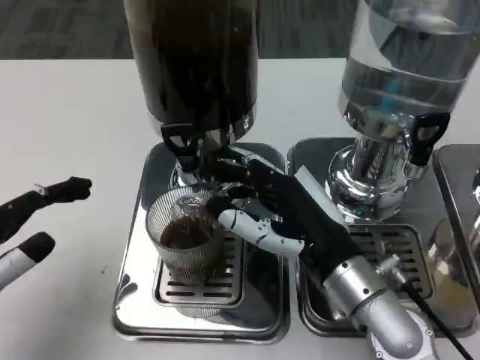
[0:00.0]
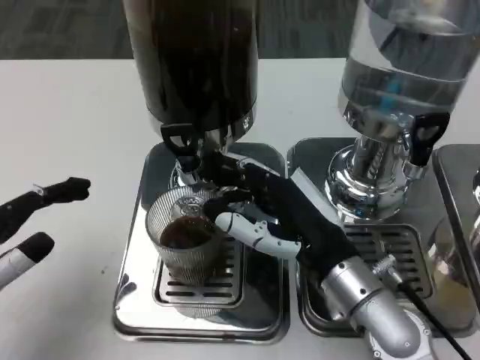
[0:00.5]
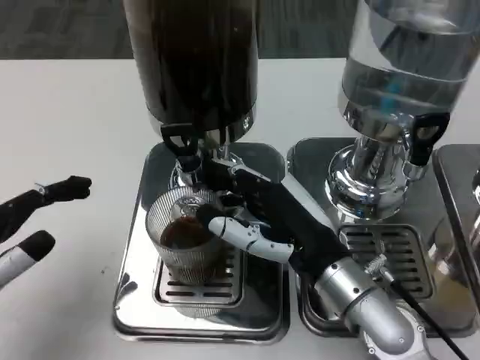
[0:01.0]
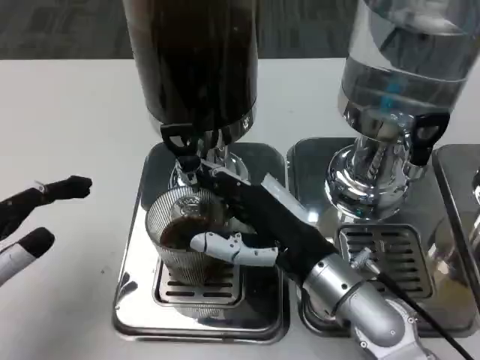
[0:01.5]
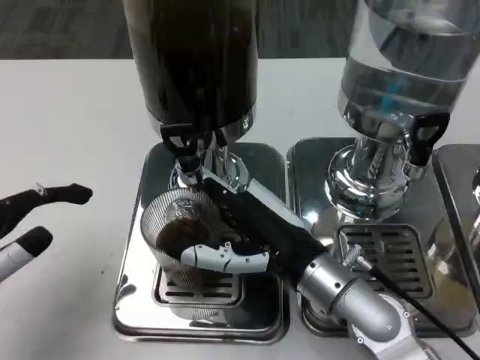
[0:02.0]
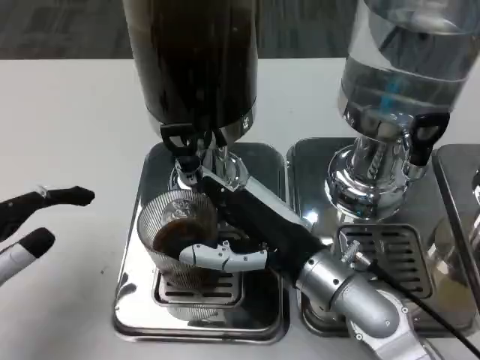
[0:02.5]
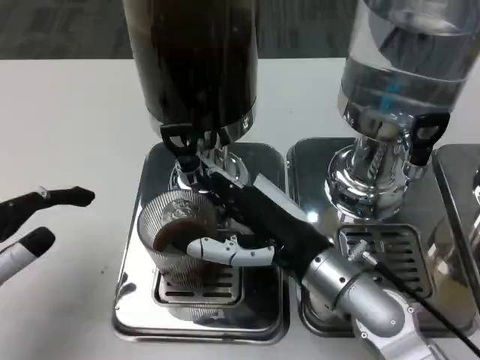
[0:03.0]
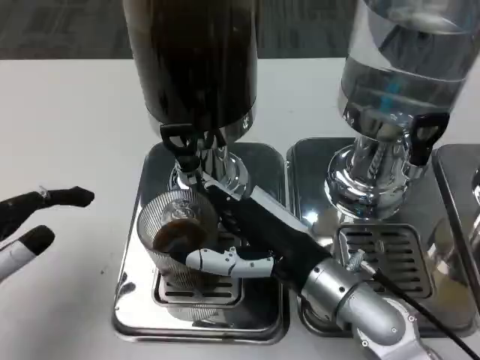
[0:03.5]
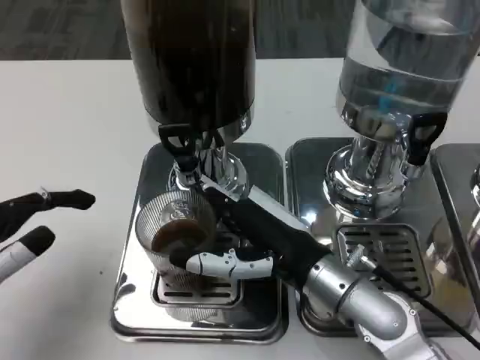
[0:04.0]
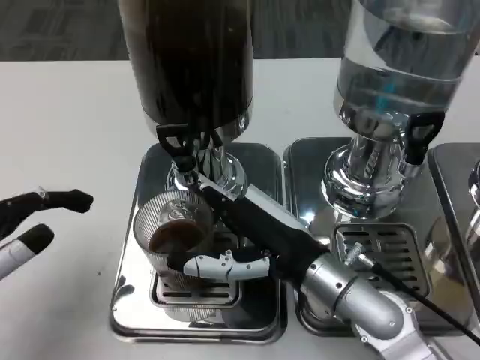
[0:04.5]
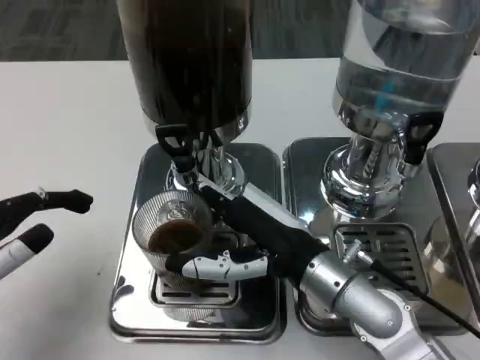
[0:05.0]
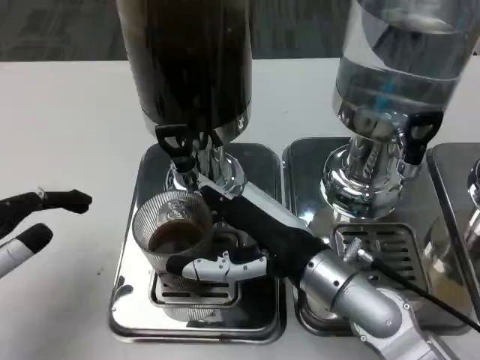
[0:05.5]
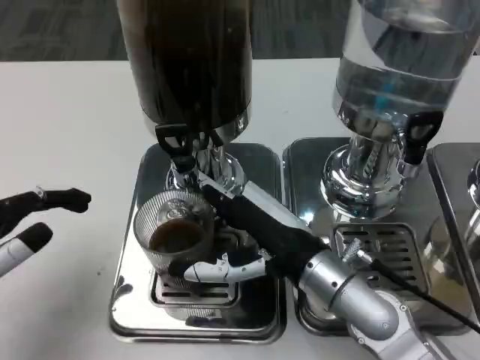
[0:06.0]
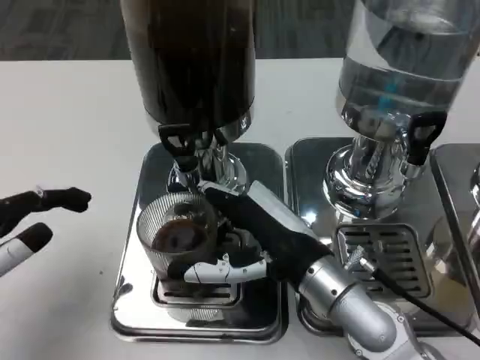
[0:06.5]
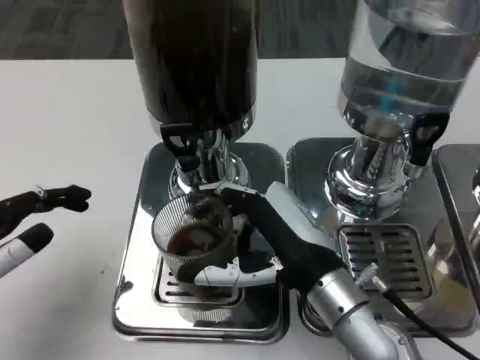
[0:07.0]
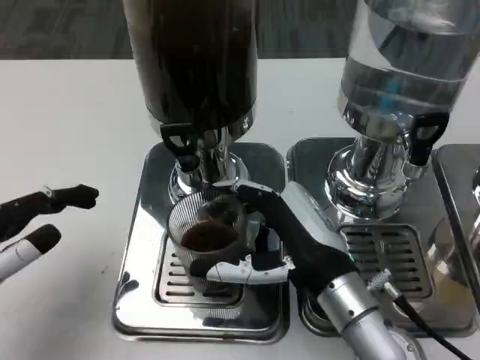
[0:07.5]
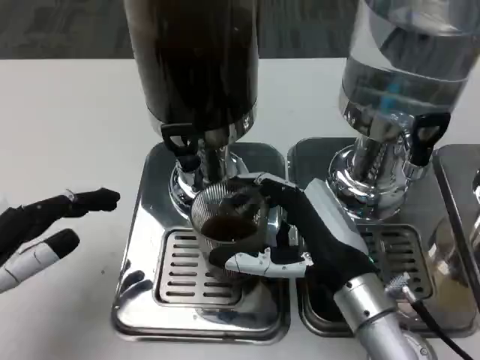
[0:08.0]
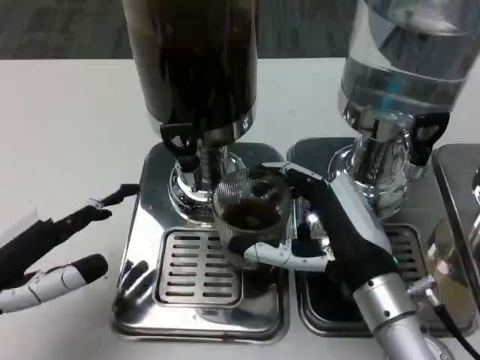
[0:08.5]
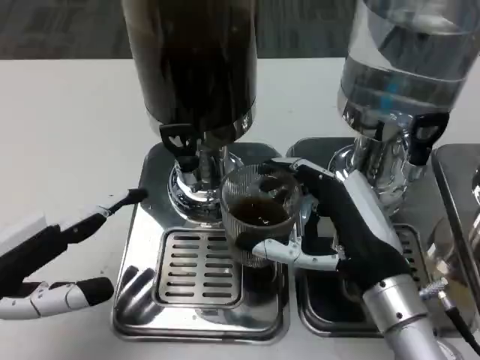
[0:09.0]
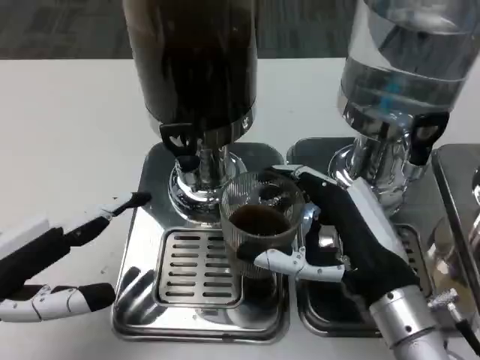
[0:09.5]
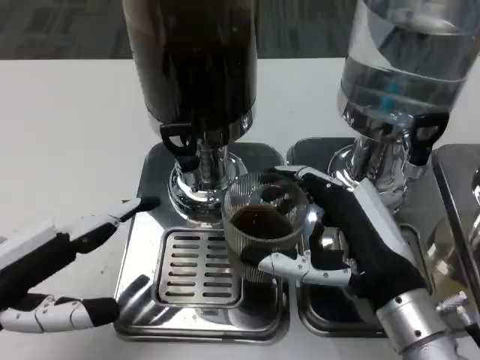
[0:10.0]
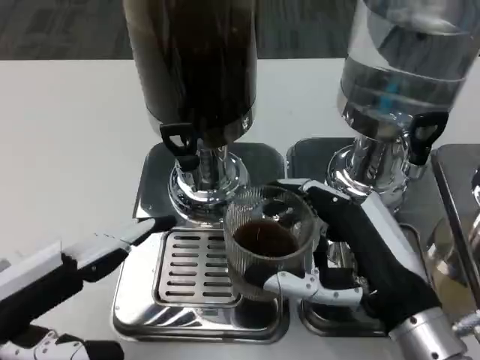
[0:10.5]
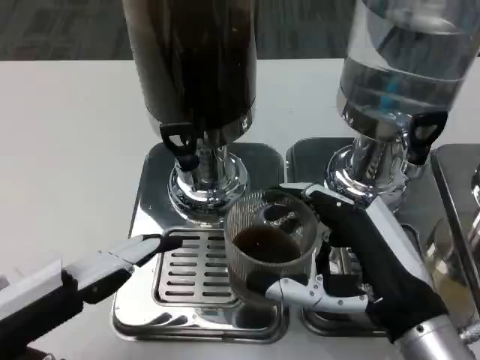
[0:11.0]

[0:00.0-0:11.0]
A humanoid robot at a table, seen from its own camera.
Task of the whole recording: Grasp the cup under the faucet to collect the drink, then remove the cup.
0:00.0 to 0:02.0: There are only small adjustments of the hands.
0:02.0 to 0:03.5: The two hands keep their place.
0:09.0 to 0:11.0: The right hand heads backward, covering approximately 5 cm.

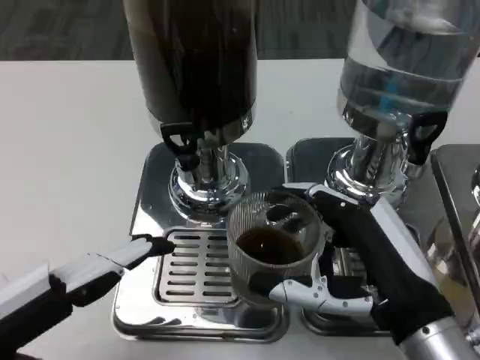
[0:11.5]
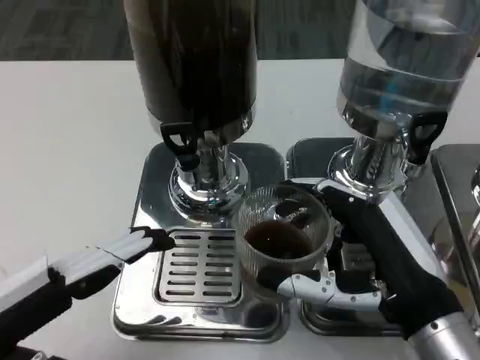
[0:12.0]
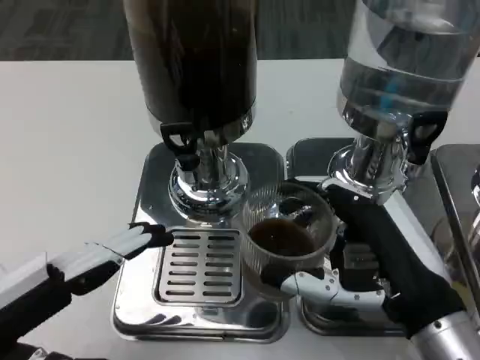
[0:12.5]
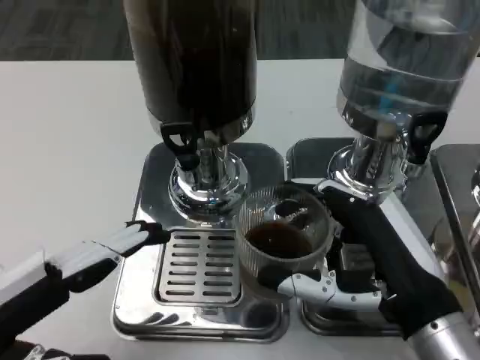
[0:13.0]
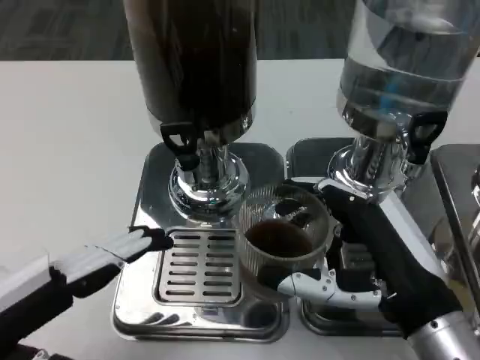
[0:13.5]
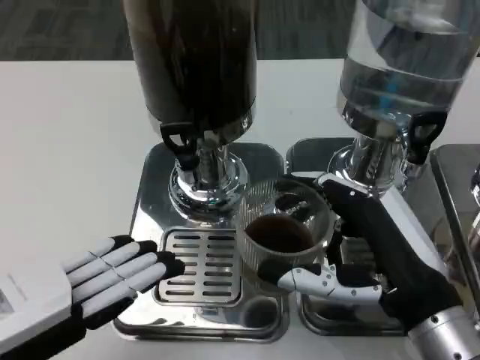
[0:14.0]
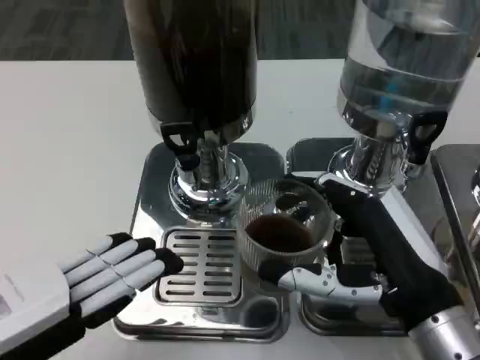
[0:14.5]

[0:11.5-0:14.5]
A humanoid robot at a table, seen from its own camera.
Task of the whole recording: Grasp the cup under the faucet to collect the drink, then remove the cup.
0:11.5 to 0:13.0: Both hands stay put.

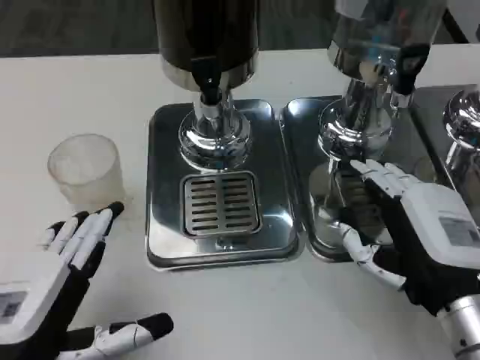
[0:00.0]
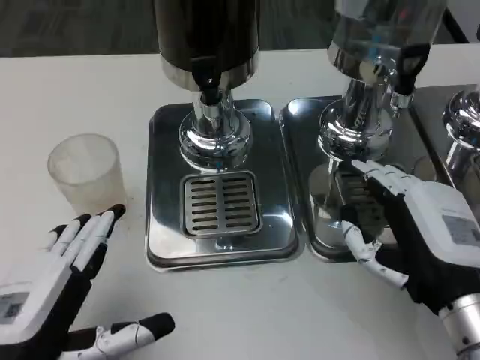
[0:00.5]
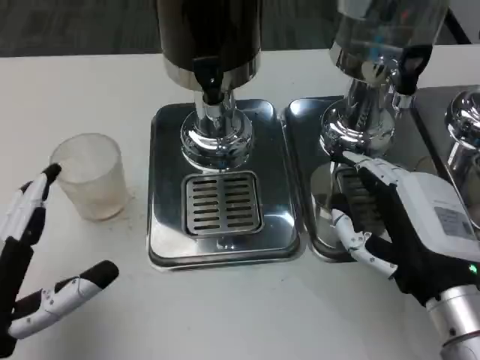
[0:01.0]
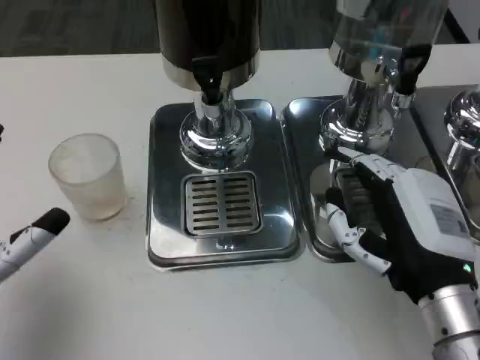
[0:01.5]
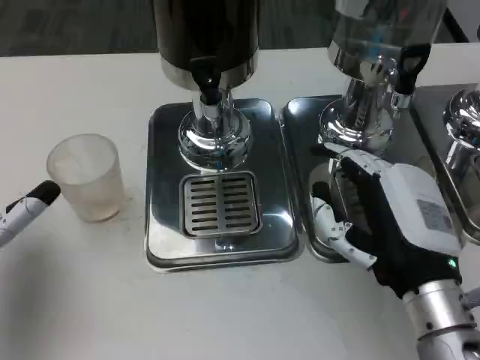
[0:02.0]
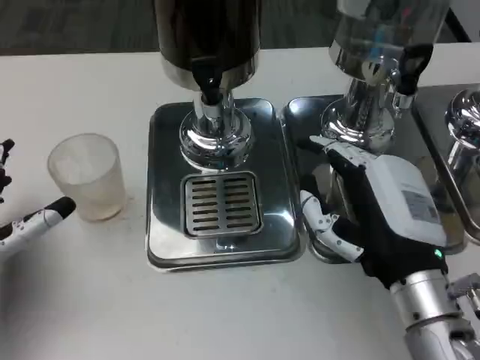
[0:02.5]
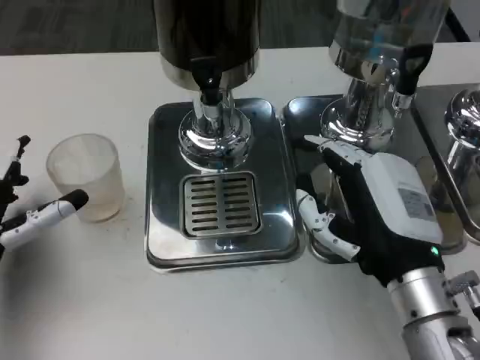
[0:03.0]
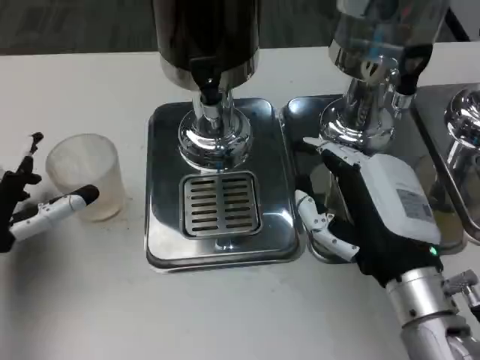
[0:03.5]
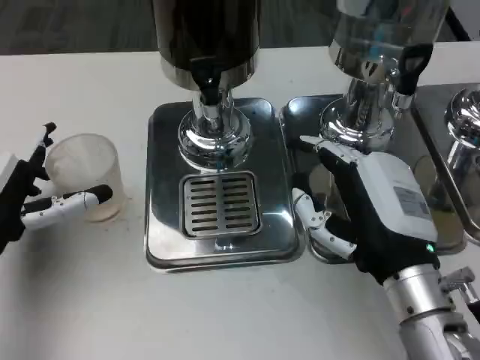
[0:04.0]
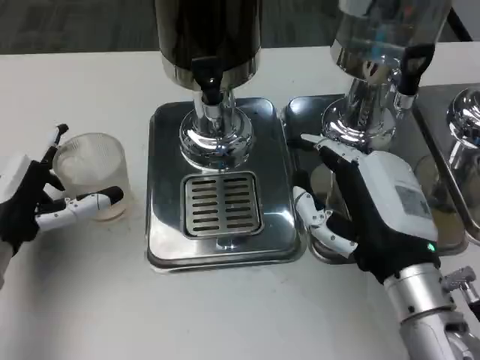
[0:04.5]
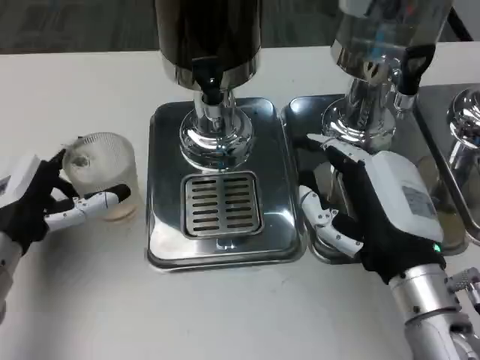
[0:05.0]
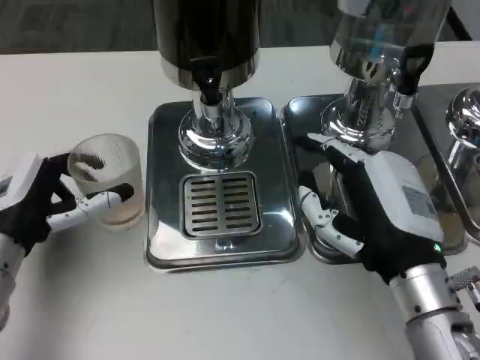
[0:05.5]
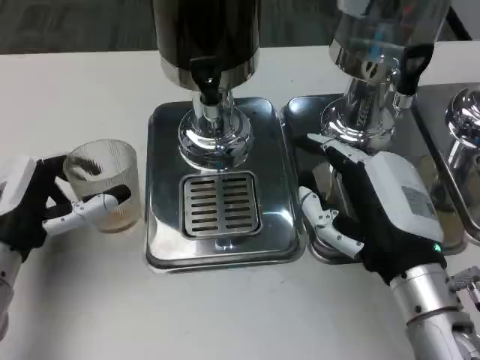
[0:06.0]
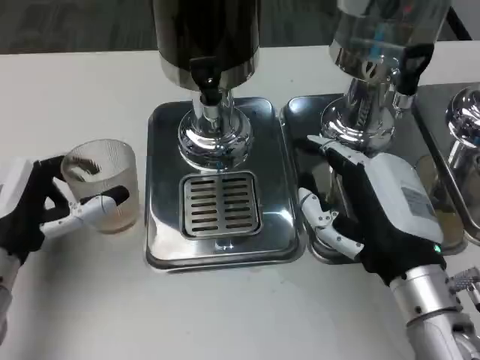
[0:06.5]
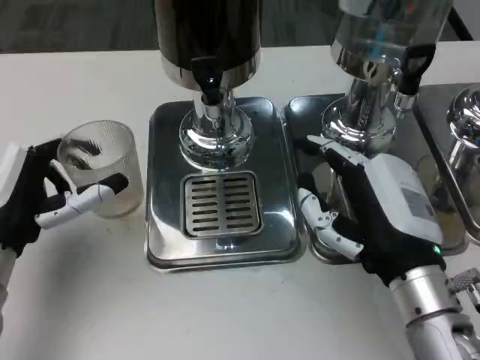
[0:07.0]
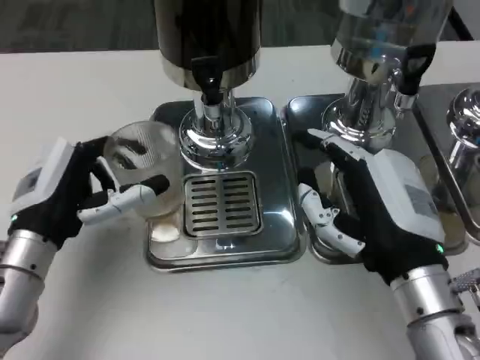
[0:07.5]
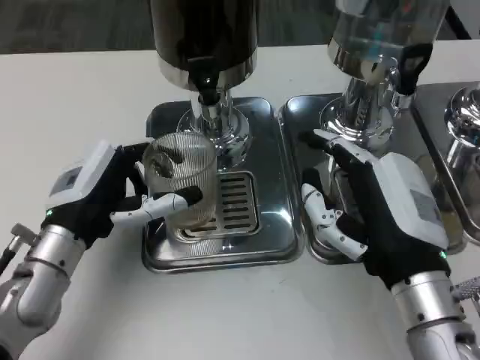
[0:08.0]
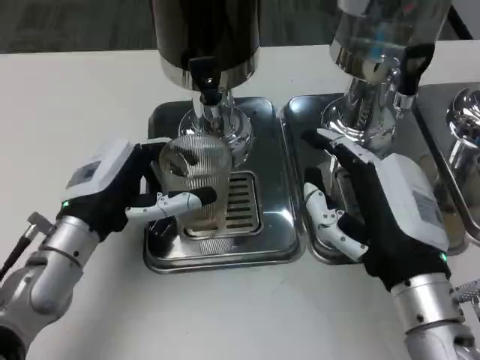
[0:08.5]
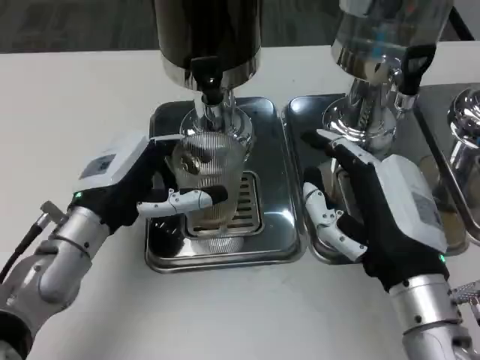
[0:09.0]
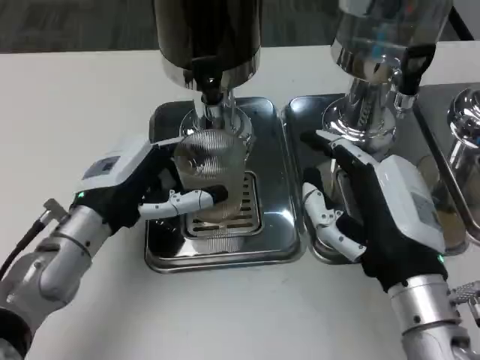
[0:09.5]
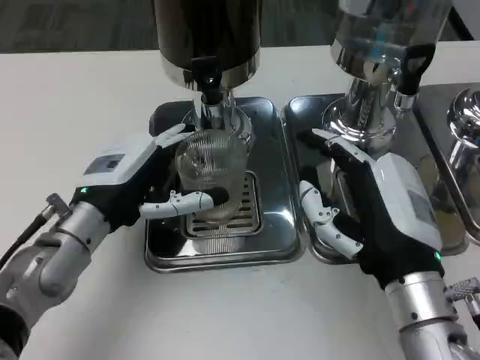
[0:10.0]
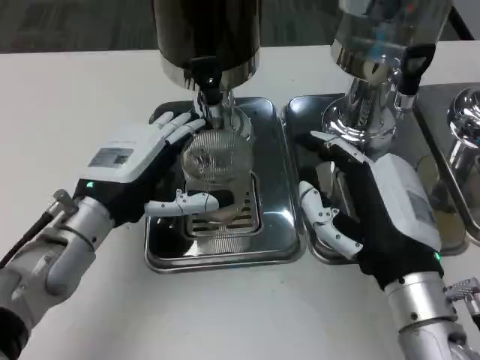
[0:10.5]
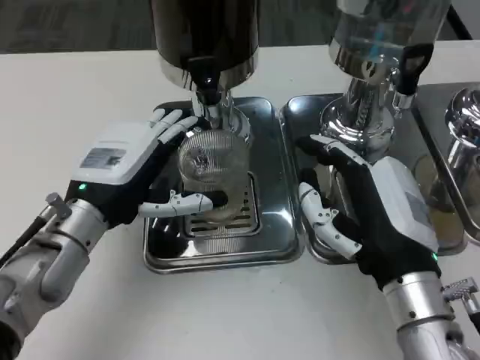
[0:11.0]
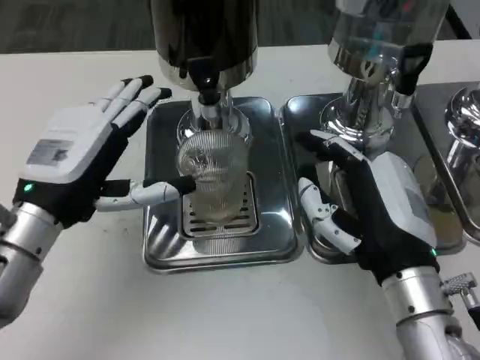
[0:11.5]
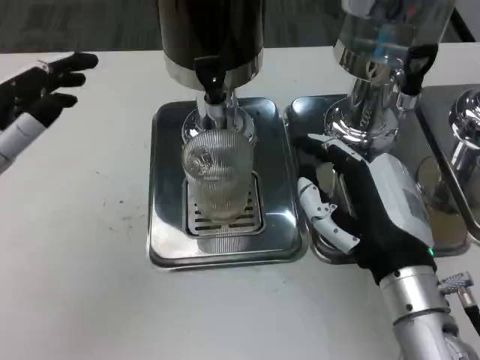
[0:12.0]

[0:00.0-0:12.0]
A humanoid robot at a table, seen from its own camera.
Task of the whole recording: Grasp the cup under the faucet to collect the drink, then remove the cup.
0:00.0 to 0:02.0: The left hand is displaced forward and to the left by roughly 10 cm.
0:02.0 to 0:04.0: The left hand goes some 5 cm forward.
0:04.0 to 0:06.0: There are only small adjustments of the hands.
0:06.0 to 0:08.0: The left hand ends up roughly 5 cm from where it was.
0:10.0 to 0:12.0: The left hand shifts approximately 15 cm to the left, upward and backward.
